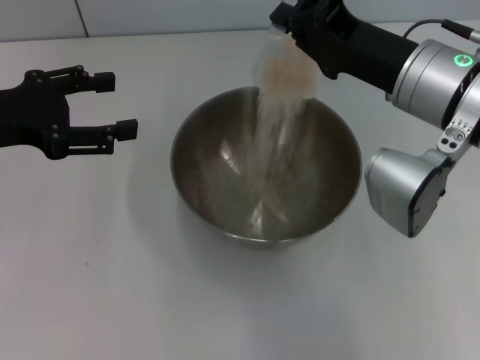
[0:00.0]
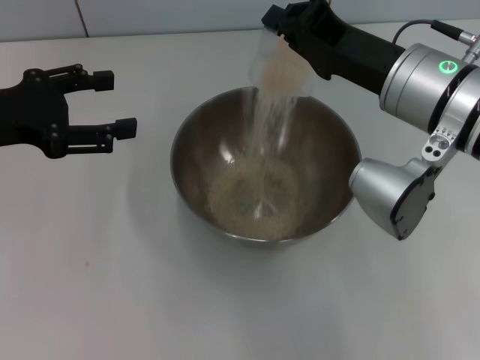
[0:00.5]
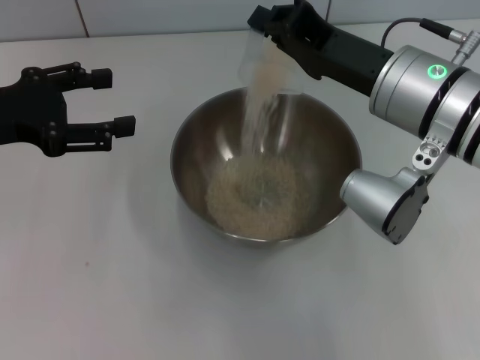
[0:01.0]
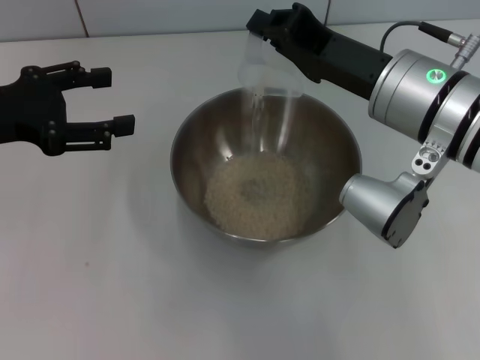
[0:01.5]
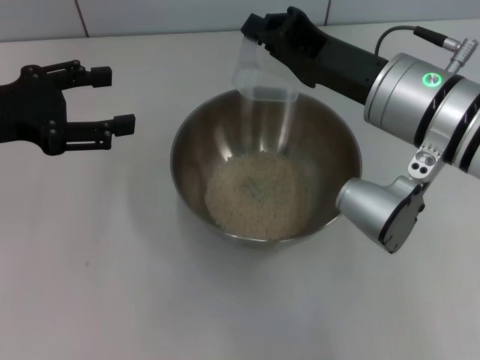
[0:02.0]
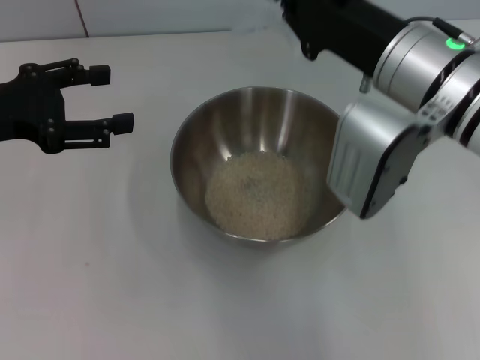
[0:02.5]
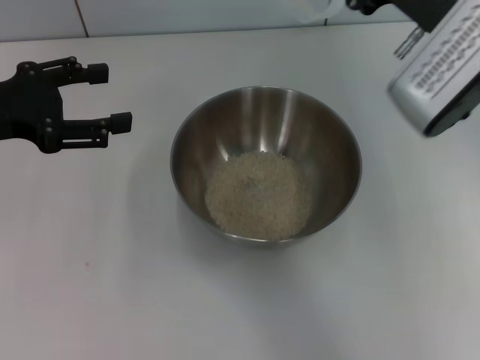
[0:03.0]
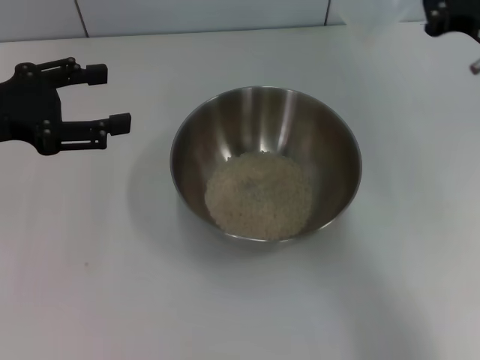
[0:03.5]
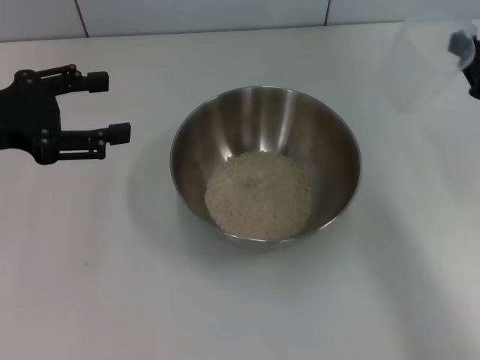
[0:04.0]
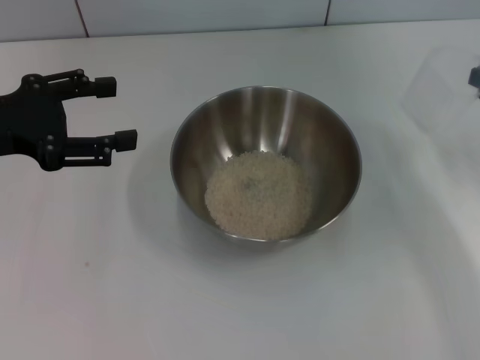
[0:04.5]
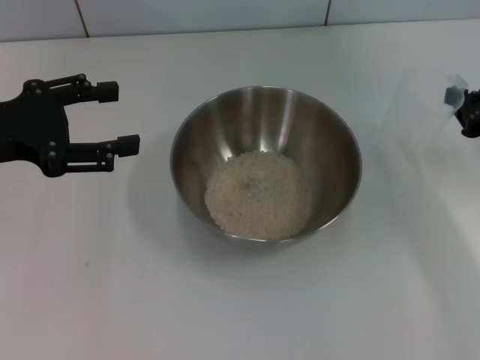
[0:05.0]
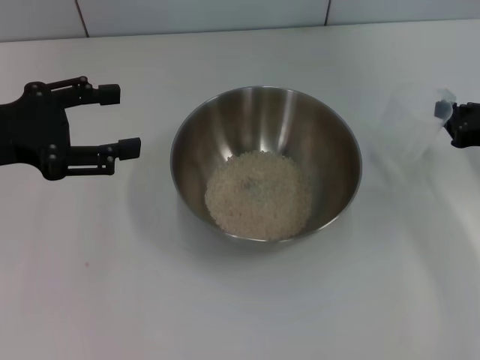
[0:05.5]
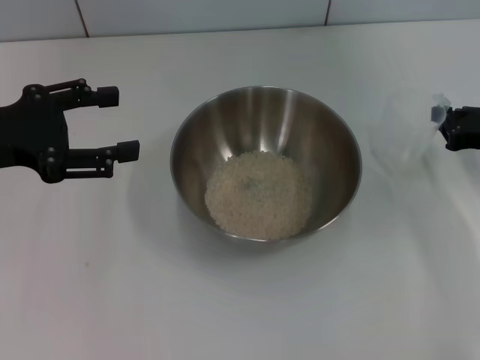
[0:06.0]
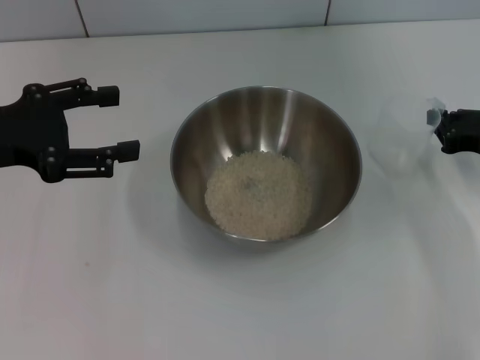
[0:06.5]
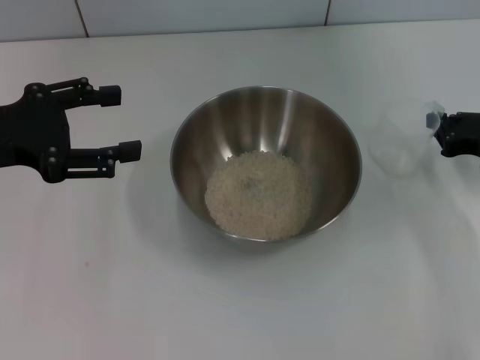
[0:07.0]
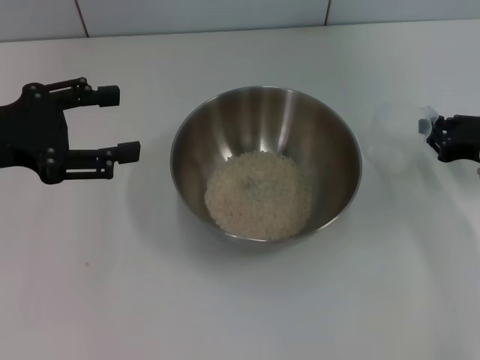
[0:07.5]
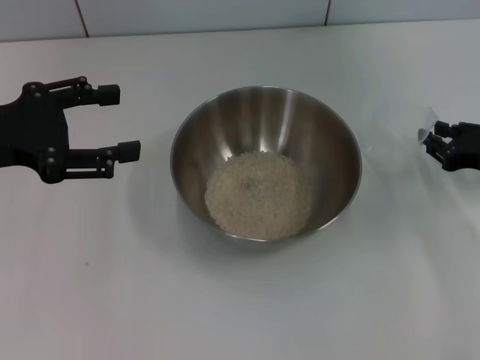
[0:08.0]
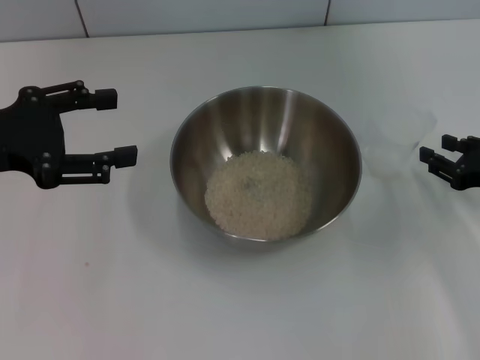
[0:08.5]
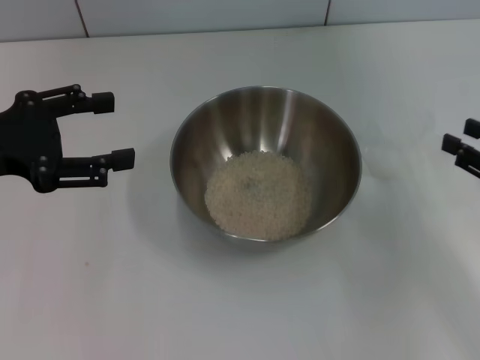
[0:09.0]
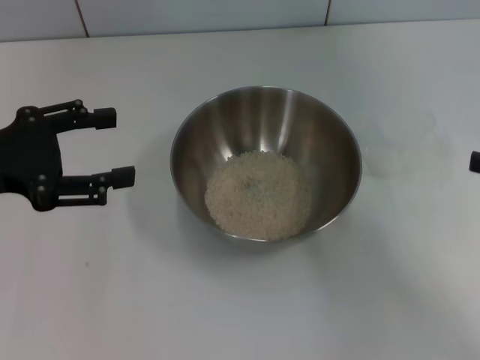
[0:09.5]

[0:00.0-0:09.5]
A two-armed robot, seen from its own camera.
Task of the whole recording: Place the bowl in the middle of the table with one hand and pour the rice from the grain cup into it with the other hand.
Step, 0:00.0 to 0:03.5: Pour the rice from the cup into the bowl with the right gripper.
Step, 0:04.0 to 0:08.5: Place the cup on the table with the right gripper.
0:00.0 to 0:02.0: There are only small adjustments of the grippers.
0:02.0 to 0:04.0: The right gripper goes approximately 15 cm to the right.
0:04.0 to 0:05.5: The right gripper shifts about 5 cm downward.
0:05.5 to 0:07.5: The grippers move only a little.
0:07.5 to 0:09.5: The right gripper shifts approximately 15 cm upward and backward, and opens its fingers.

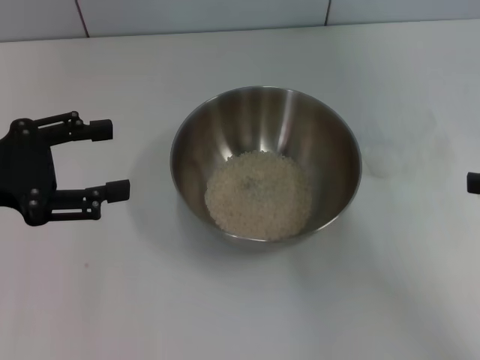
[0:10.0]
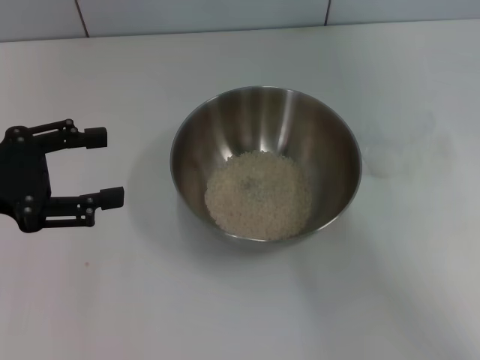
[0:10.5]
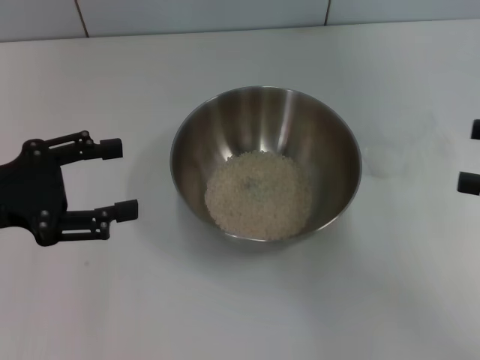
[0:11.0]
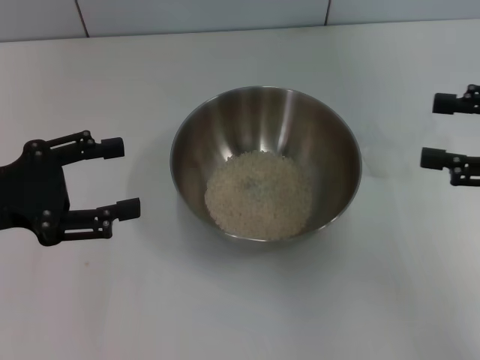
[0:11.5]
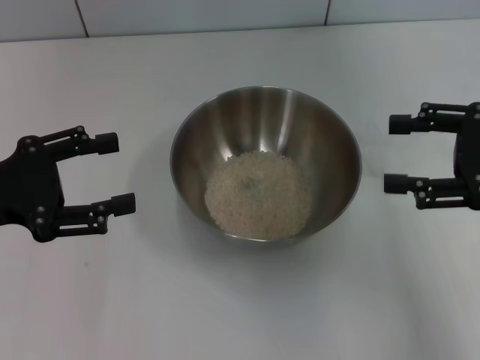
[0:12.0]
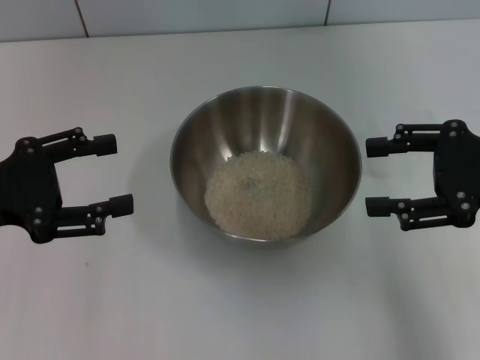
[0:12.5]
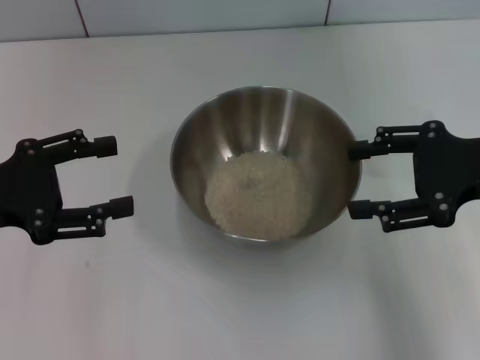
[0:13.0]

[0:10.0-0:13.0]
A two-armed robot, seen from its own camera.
Task of the whole recording: Place the bowl in the middle of the table with one hand and pour the rice from the grain cup into it with the other hand.
0:10.0 to 0:11.5: The grippers move only a little.
0:11.5 to 0:13.0: The right gripper is displaced to the left by some 5 cm.

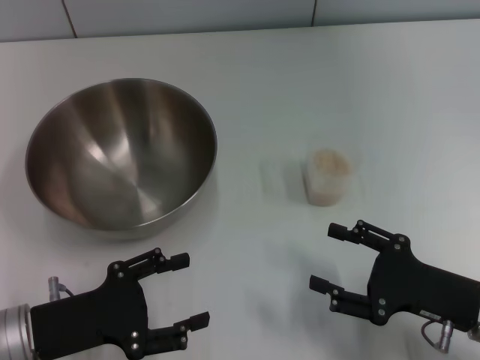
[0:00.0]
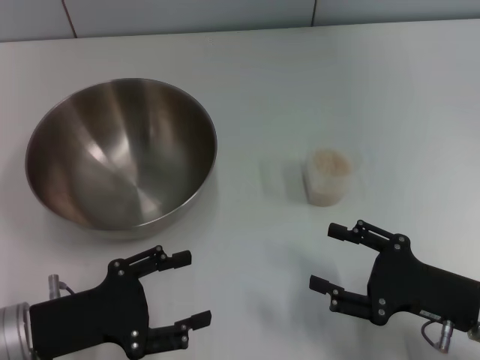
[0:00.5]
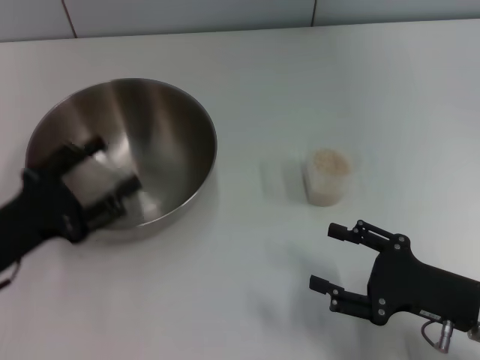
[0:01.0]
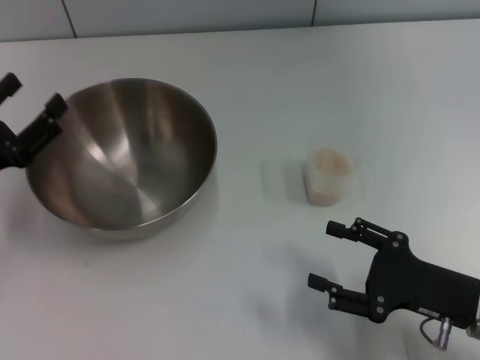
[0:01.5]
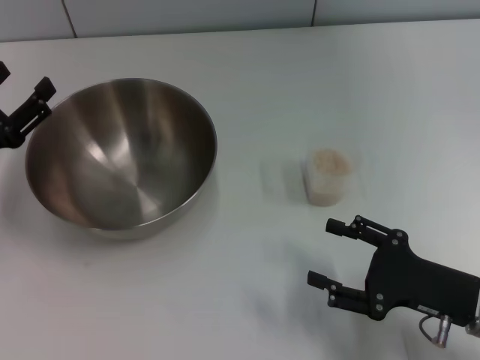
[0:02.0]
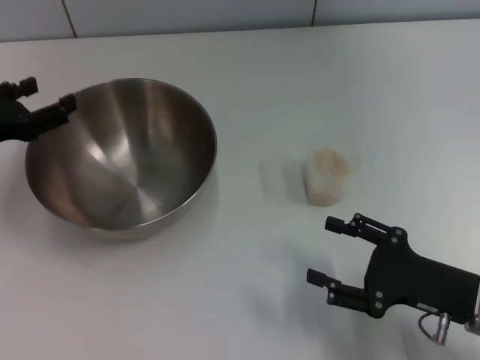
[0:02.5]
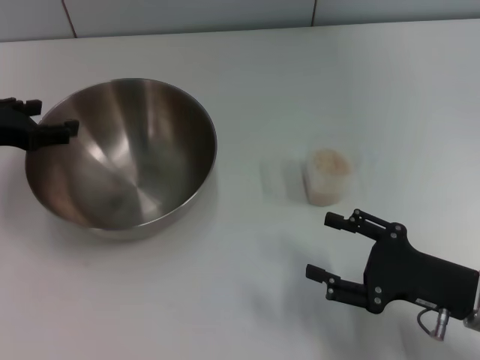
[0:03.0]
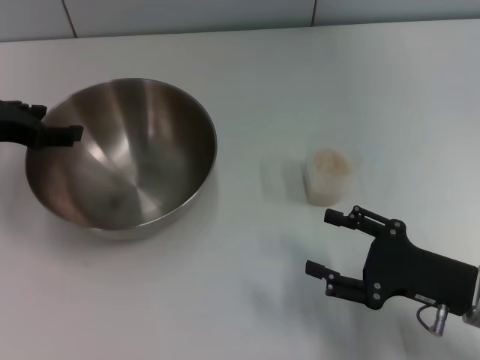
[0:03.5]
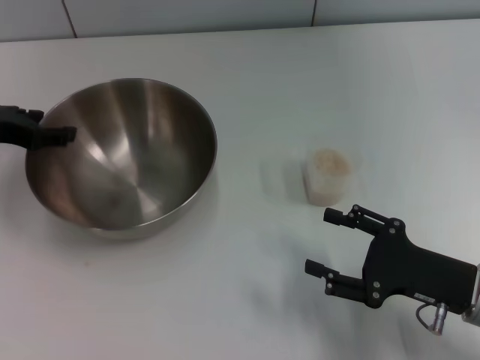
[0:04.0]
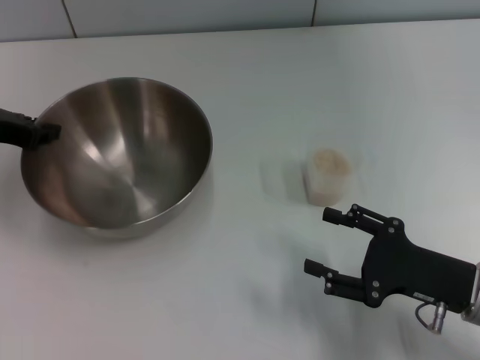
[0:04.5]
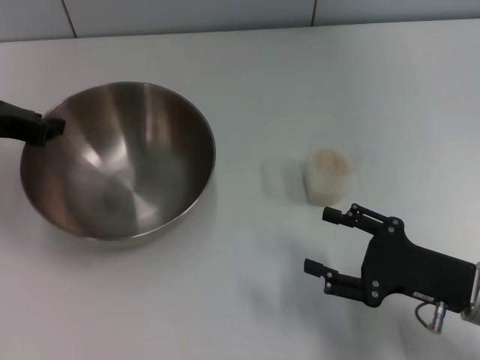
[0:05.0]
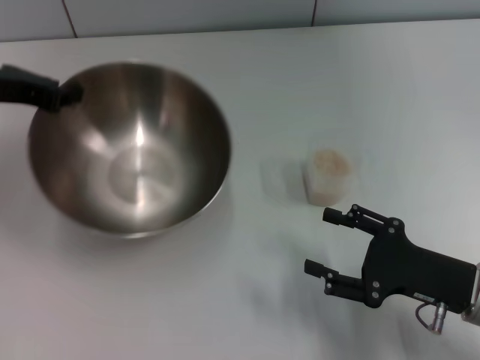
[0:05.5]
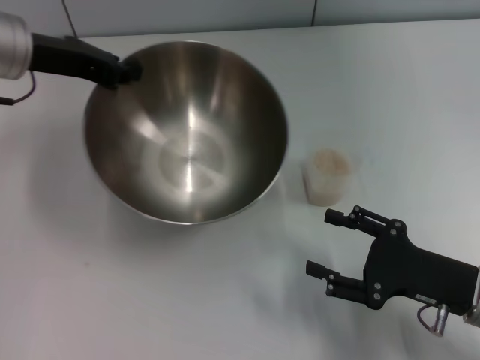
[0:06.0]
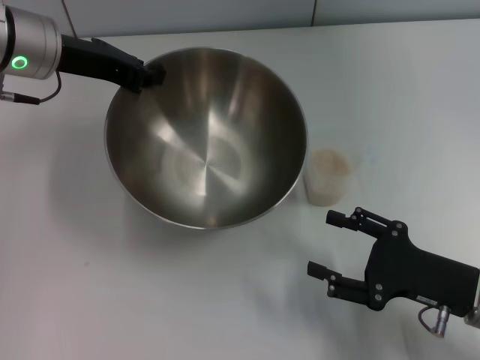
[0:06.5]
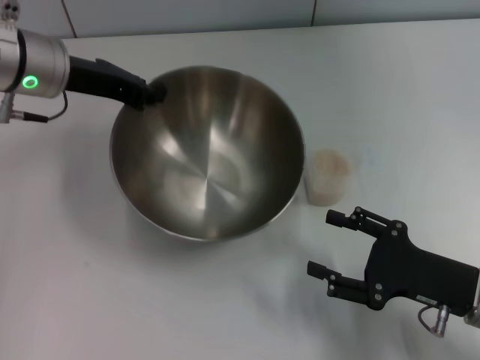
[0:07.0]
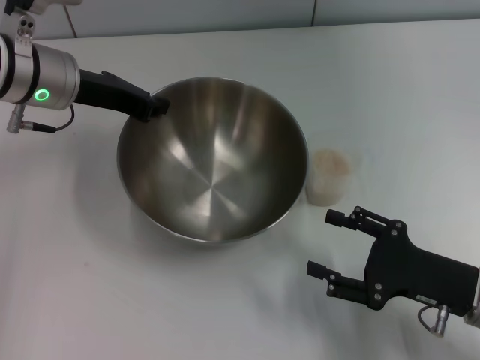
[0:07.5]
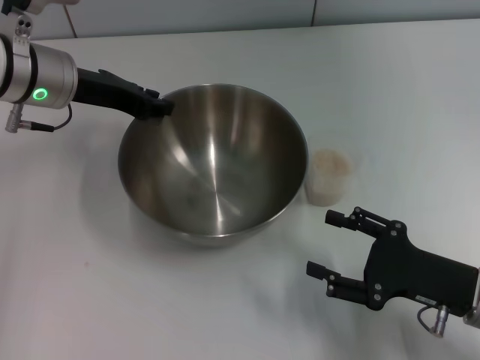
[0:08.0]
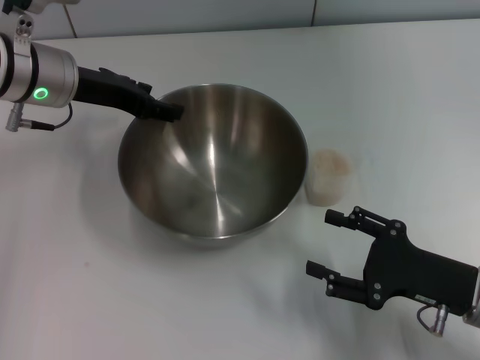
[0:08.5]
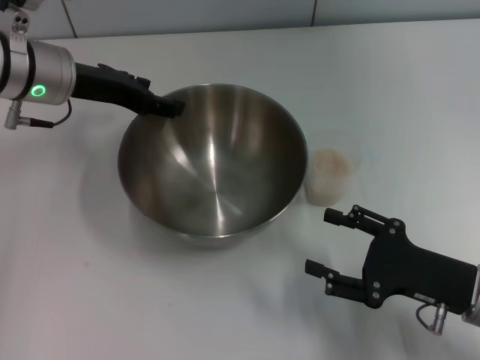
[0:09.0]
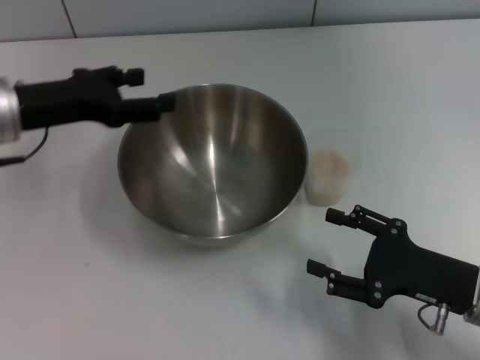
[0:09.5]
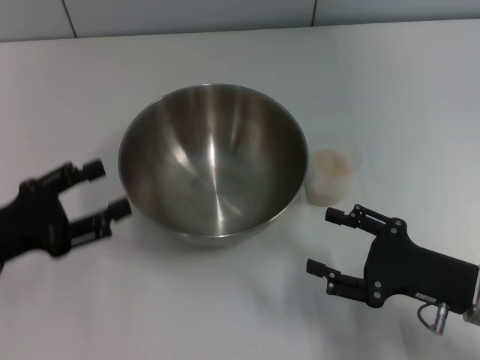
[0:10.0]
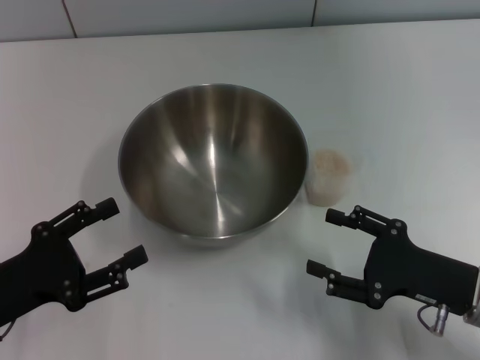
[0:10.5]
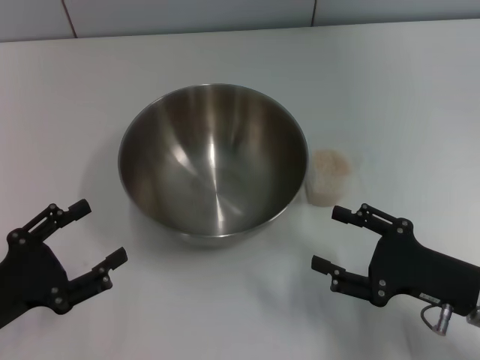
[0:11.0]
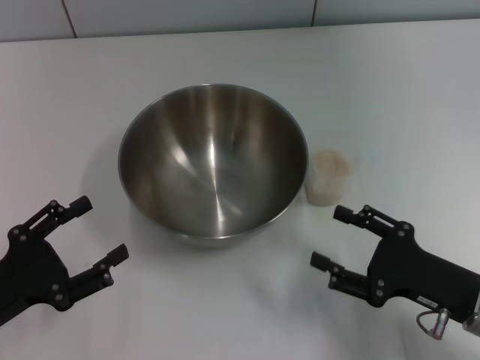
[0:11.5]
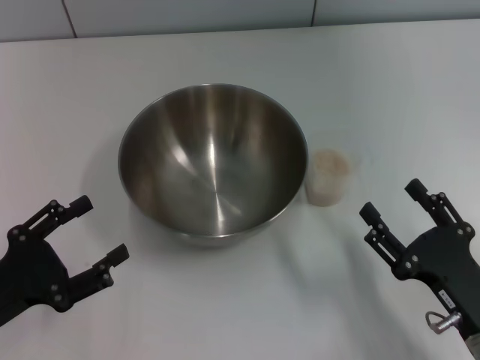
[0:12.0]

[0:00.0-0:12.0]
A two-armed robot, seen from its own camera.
Task of the whole recording: Place the bowl in the middle of the table with one hand and pour the rice from the grain cup into it with the other hand.
Step, 0:00.0 to 0:05.5: Pick up the bowl with the left gripper.
Step, 0:06.0 to 0:09.0: Place the bowl in the center of view with the left gripper.
0:00.0 to 0:02.0: The left gripper heads forward and to the left, covering approximately 10 cm.
0:02.0 to 0:04.0: The left gripper is displaced forward and upward by about 10 cm.
0:04.0 to 0:06.0: The left gripper moves to the right and upward, some 10 cm, and closes.
0:06.0 to 0:08.0: The left gripper ends up some 5 cm from where it was.
0:08.0 to 0:10.0: The left gripper is displaced backward, to the left and downward by roughly 20 cm, and opens.
0:10.0 to 0:12.0: Both grippers travel together backward, approximately 5 cm.
